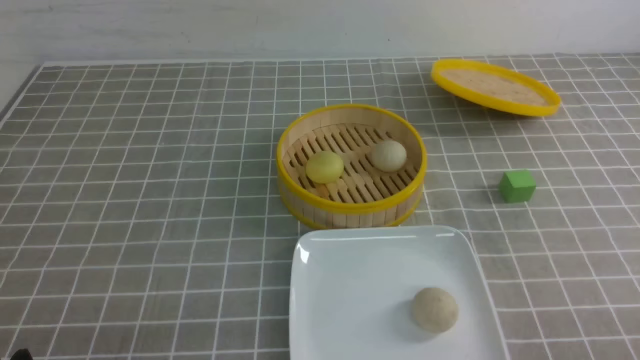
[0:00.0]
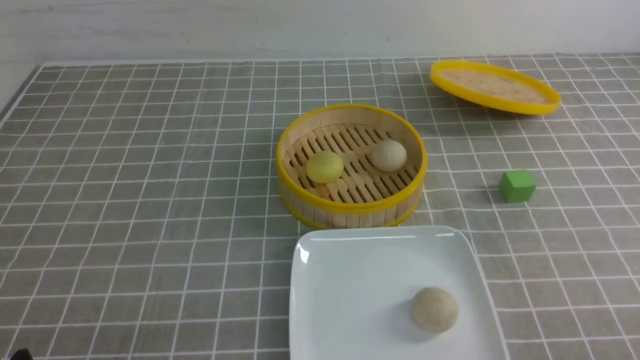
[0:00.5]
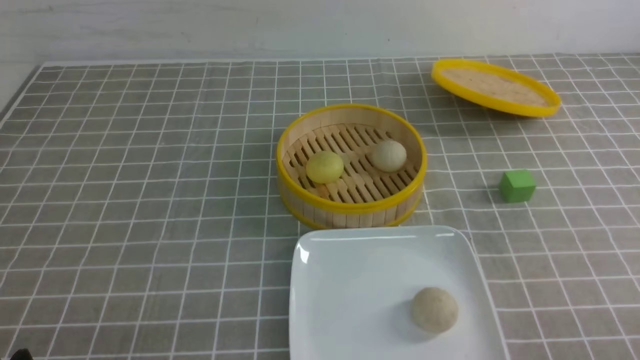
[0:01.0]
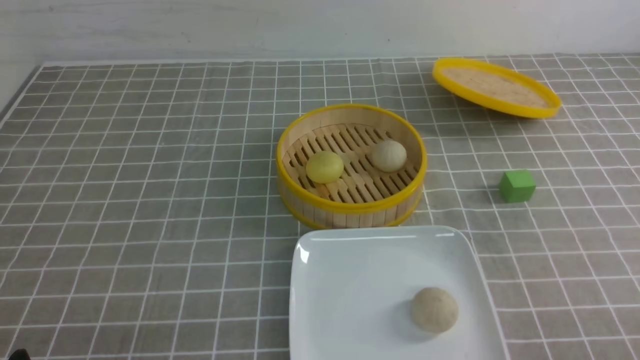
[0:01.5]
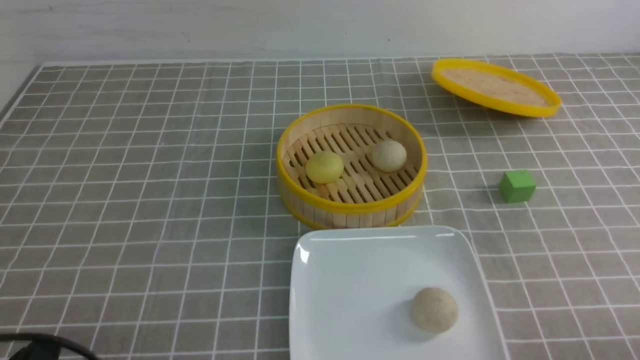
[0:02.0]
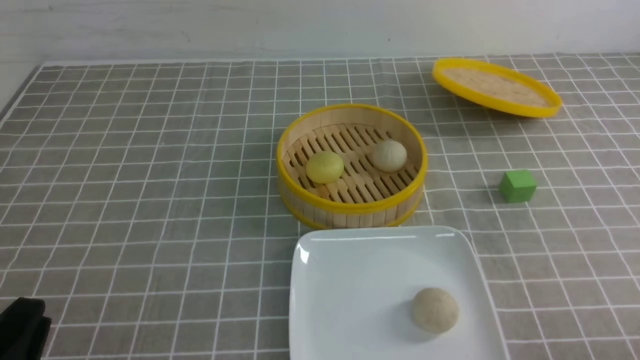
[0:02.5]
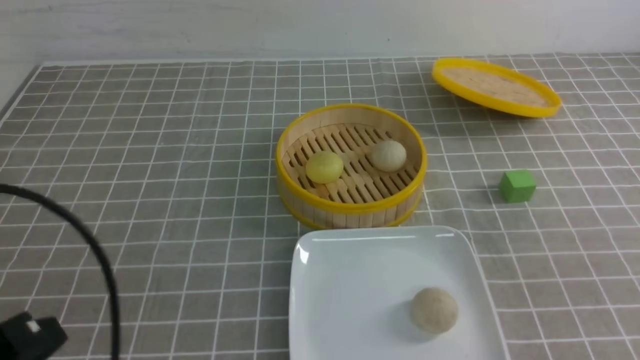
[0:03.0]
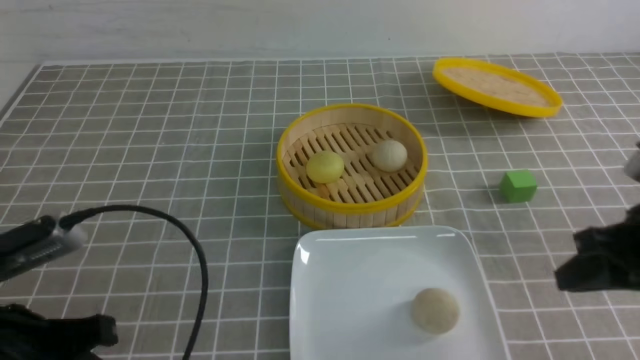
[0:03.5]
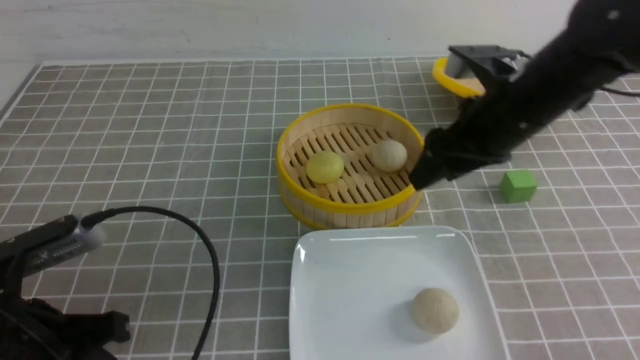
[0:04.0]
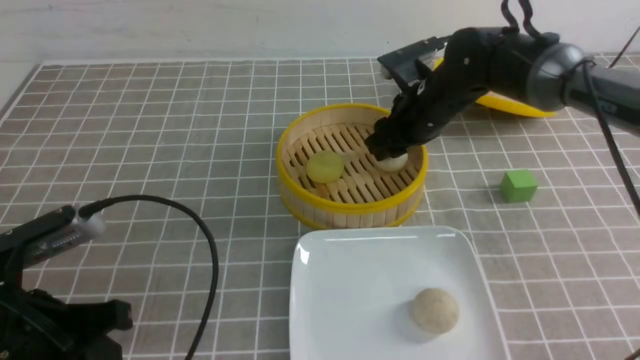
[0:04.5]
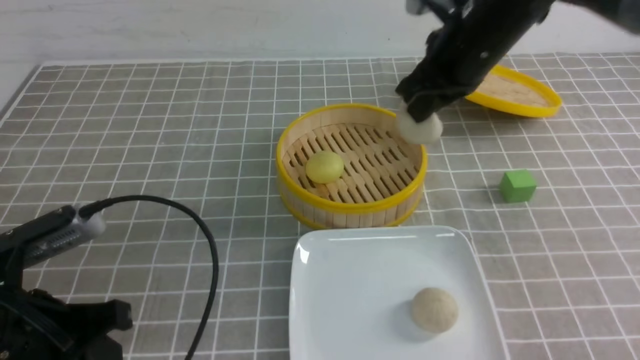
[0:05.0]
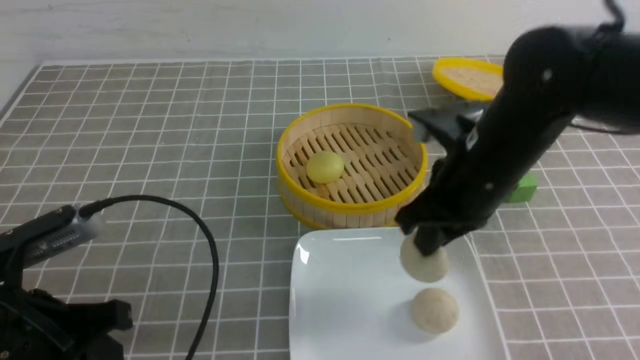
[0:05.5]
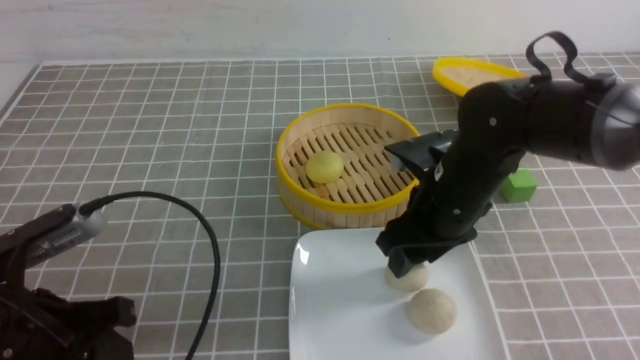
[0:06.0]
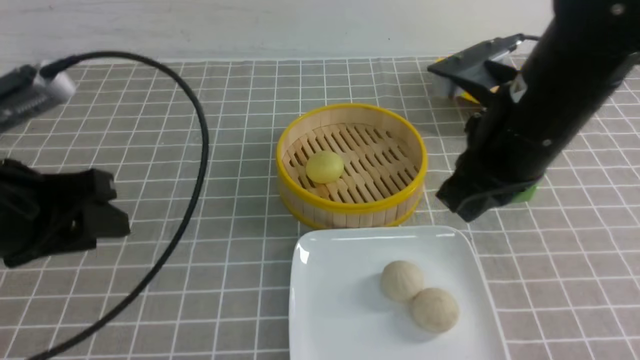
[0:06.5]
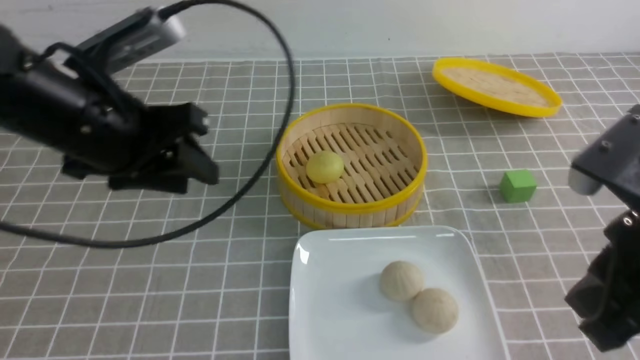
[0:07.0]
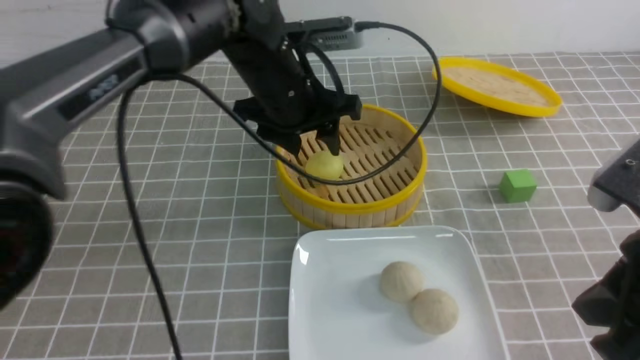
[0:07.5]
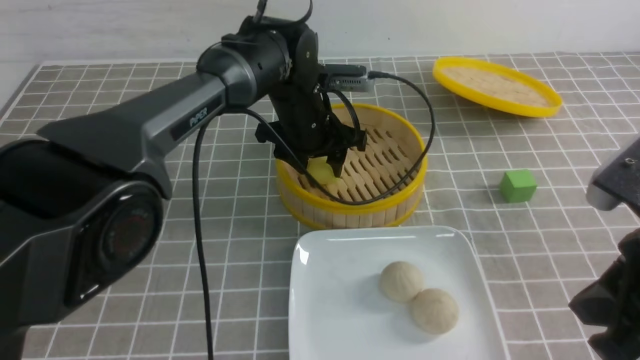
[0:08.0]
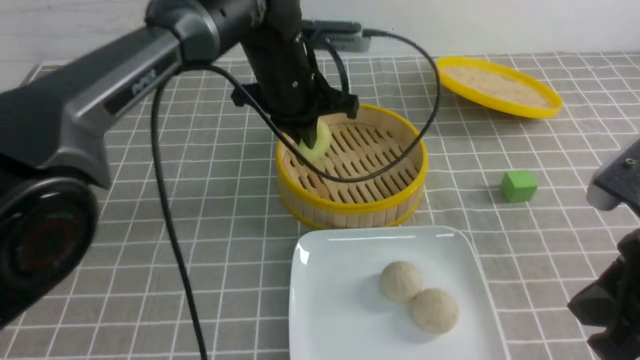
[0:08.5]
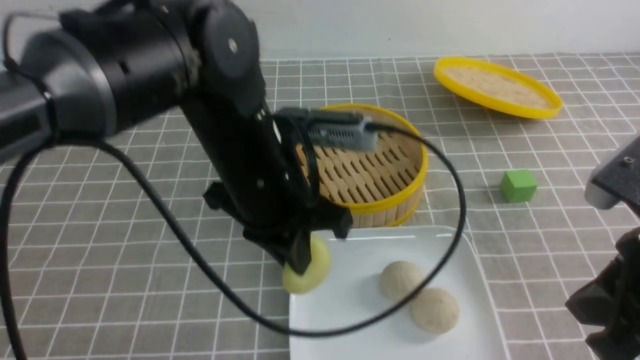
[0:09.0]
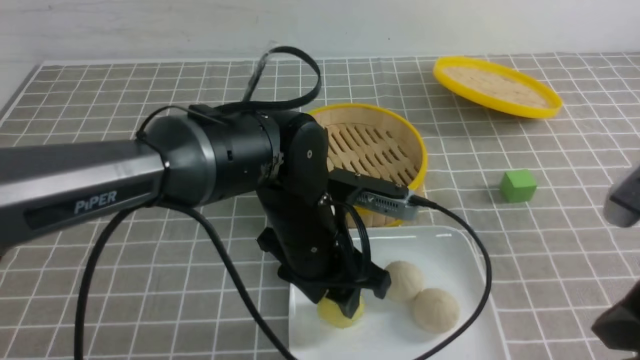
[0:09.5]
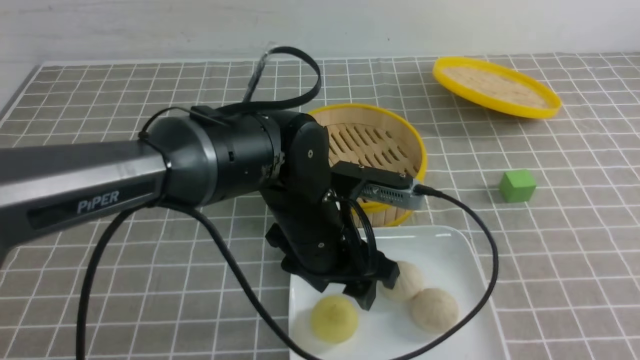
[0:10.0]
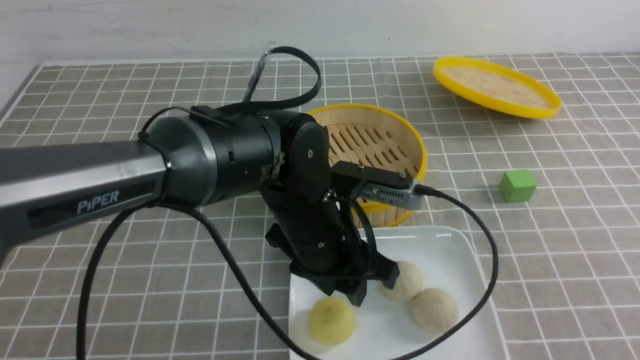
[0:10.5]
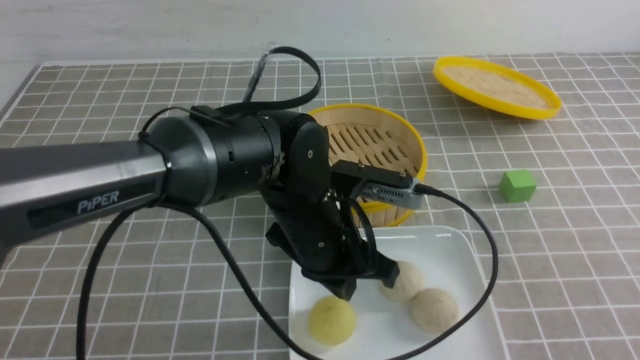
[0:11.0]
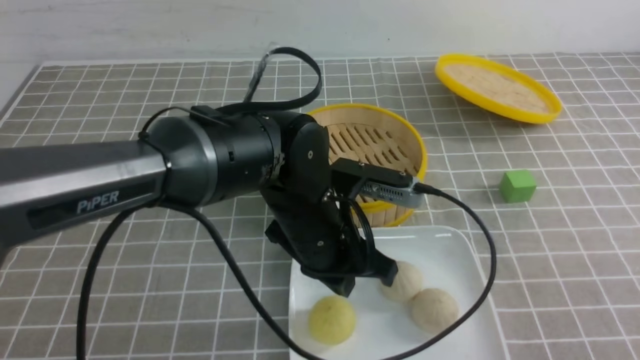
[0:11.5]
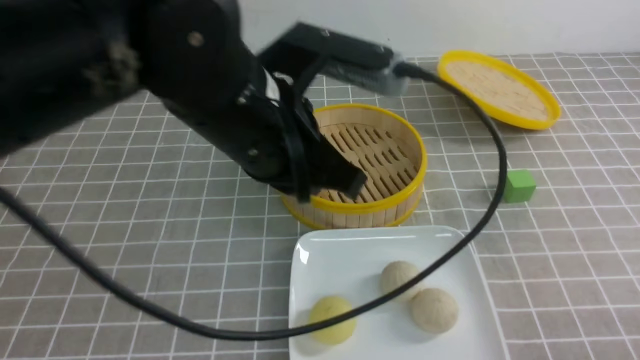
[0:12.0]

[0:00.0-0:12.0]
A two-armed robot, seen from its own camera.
Step, 0:00.0 to 0:04.5: use the right arm to grab the steamed stuffed bun that is closest to it.
Step, 0:05.0 to 0:06.0: use the right arm to put the steamed stuffed bun into the plate.
Step, 0:06.5 to 0:08.0: use the left arm to grab the steamed stuffed bun that is closest to it.
Step, 0:08.5 to 0:09.5: use the left arm to put the steamed stuffed bun into the plate.
0:02.0 to 0:04.0: The left gripper travels forward and upward by some 10 cm, and closes, while the right gripper shifts about 35 cm forward and to the left, and opens.
0:04.0 to 0:06.0: The right gripper goes about 10 cm to the left, backward and downward, and closes, then opens again.
0:06.0 to 0:08.0: The right gripper travels backward, to the right and upward by some 20 cm, and closes, while the left gripper shifts approximately 35 cm forward and to the right, and opens its fingers.
0:08.0 to 0:10.0: The right gripper shifts some 15 cm backward and to the right, while the left gripper is displaced backward by some 15 cm, and closes and opens again.
0:10.0 to 0:12.0: The right gripper heads downward, covering about 15 cm, while the left gripper moves upward, roughly 15 cm, and closes up.

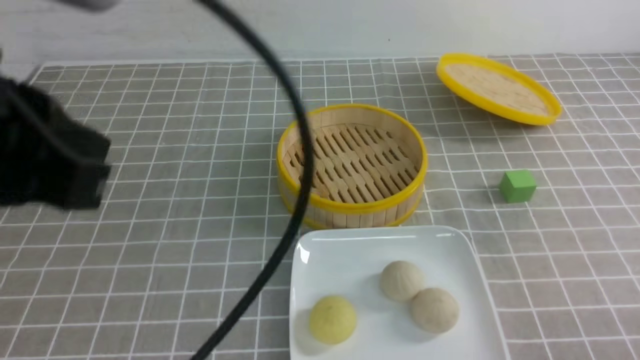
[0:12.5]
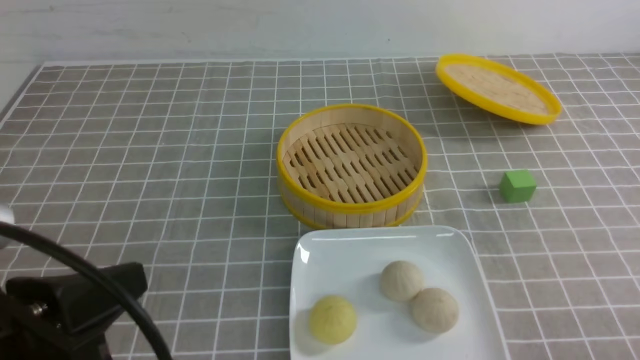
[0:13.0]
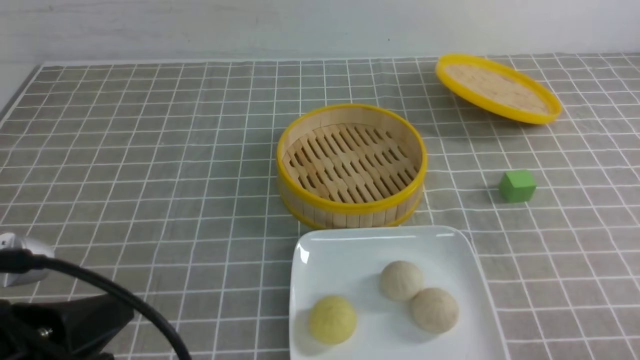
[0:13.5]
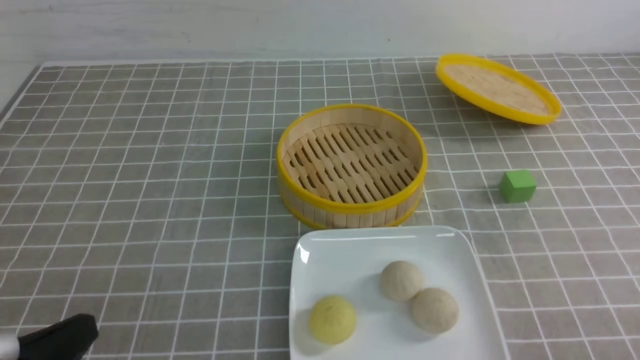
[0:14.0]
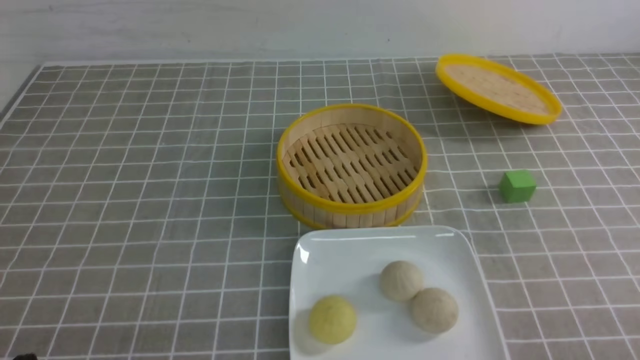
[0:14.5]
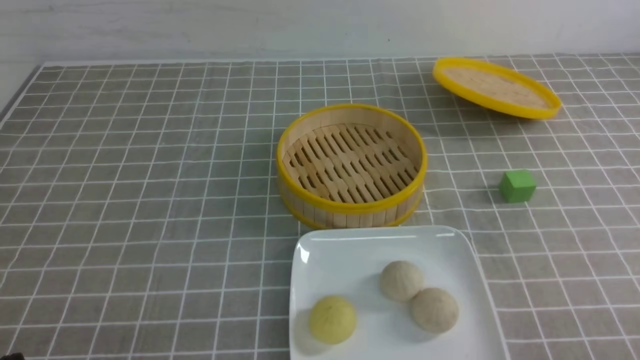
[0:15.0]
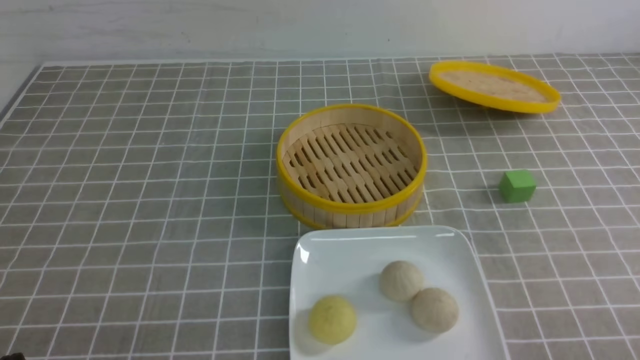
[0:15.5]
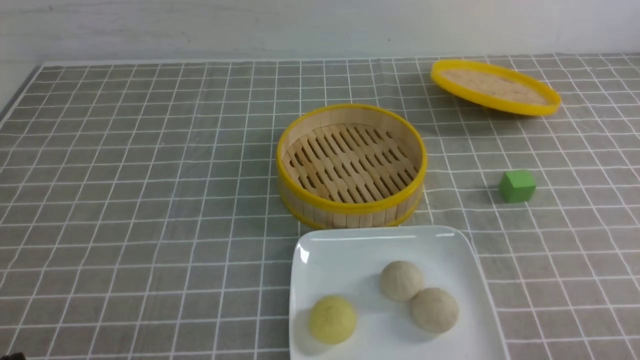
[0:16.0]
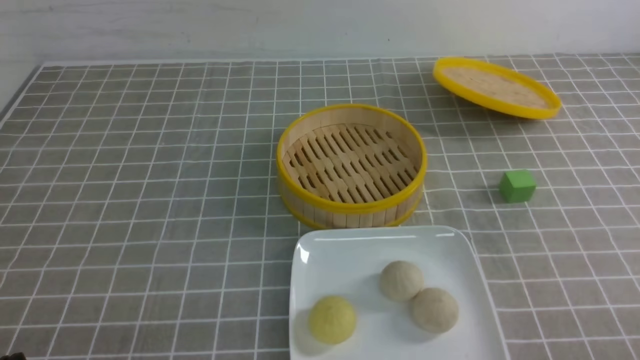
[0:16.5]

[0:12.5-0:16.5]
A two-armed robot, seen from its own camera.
0:12.5 to 0:14.5: The left gripper is displaced downward by approximately 25 cm.
0:14.5 to 0:16.5: The two grippers keep their place.

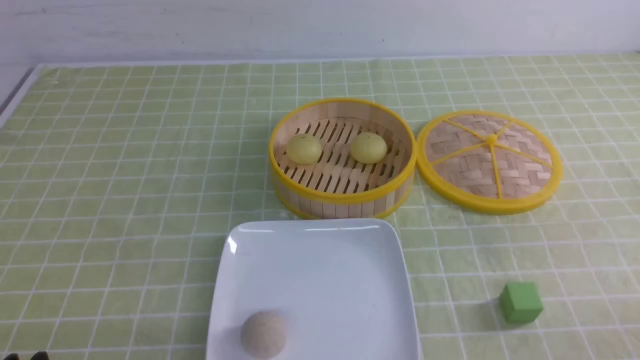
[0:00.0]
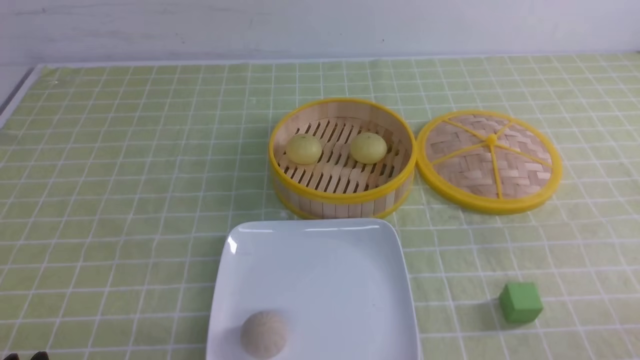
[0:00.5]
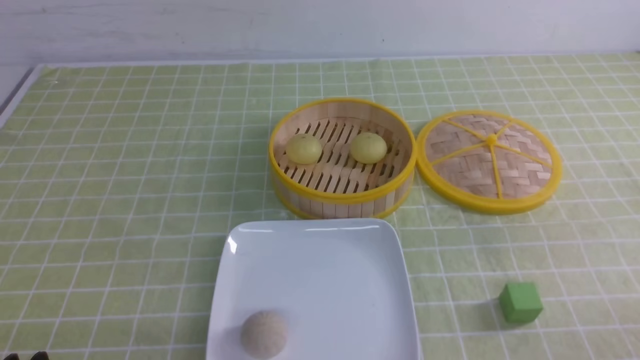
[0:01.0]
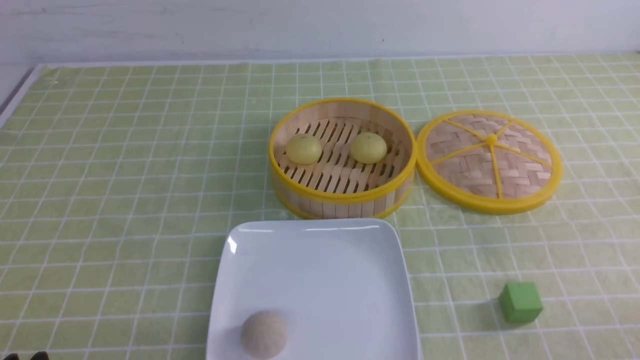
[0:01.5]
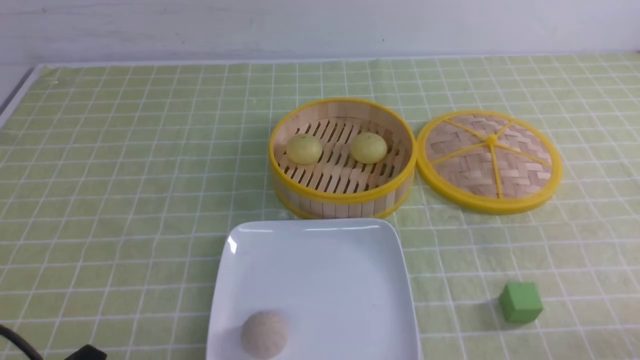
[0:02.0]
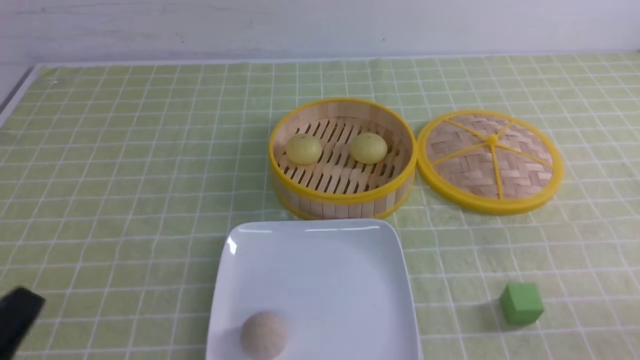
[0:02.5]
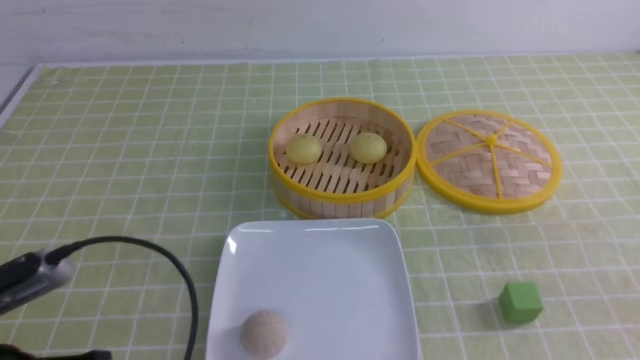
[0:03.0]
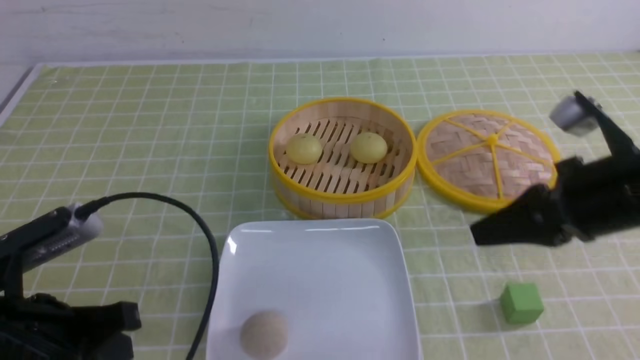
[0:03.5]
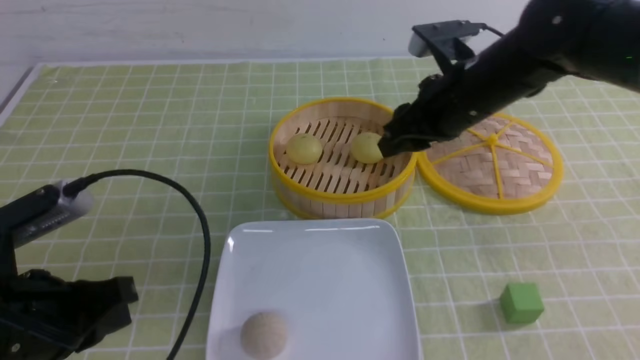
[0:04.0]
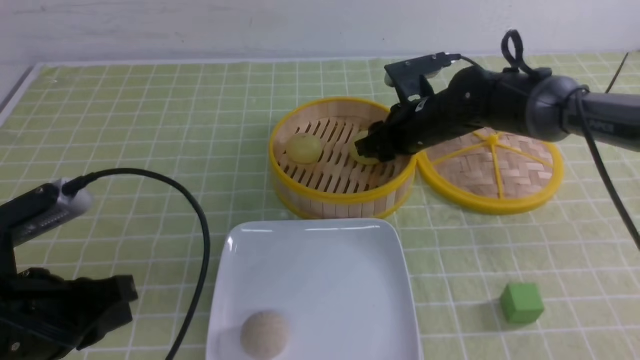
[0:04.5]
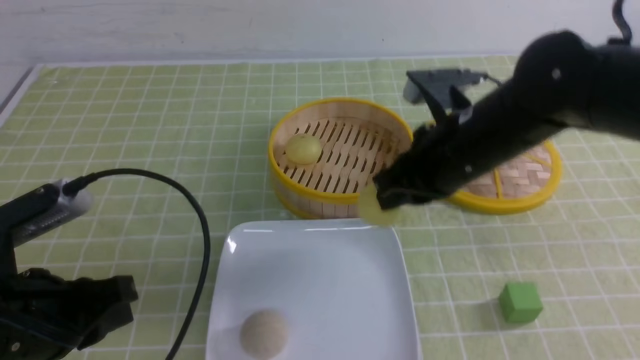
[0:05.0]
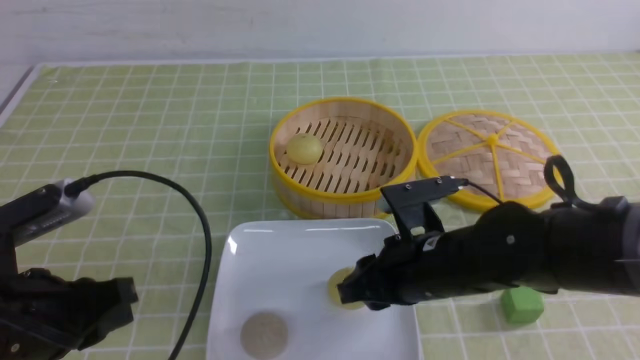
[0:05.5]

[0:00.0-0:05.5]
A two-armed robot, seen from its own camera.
Step, 0:00.0 to 0:04.5: use the right arm to grab the steamed stuffed bun that is closest to it.
Step, 0:05.0 to 0:05.5: use the right arm to put the steamed stuffed bun into the plate.
0:02.0 to 0:03.5: The left gripper heads forward and upward, covering approximately 10 cm, and closes up. The right gripper travels forward, upward and to the left by approximately 25 cm, and closes up.
0:03.5 to 0:05.5: The right gripper travels to the left and downward by some 15 cm, goes forward and returns, roughly 20 cm each way, and opens its fingers.
